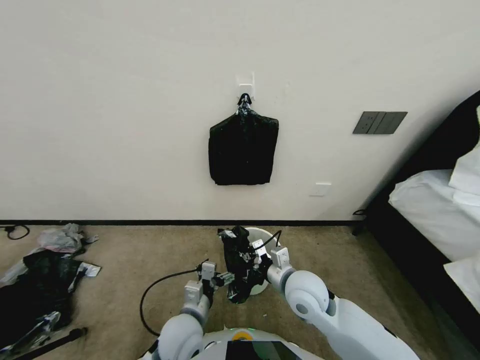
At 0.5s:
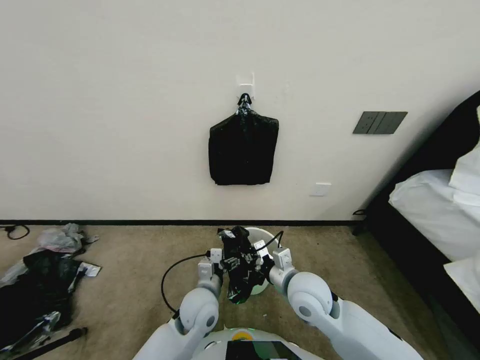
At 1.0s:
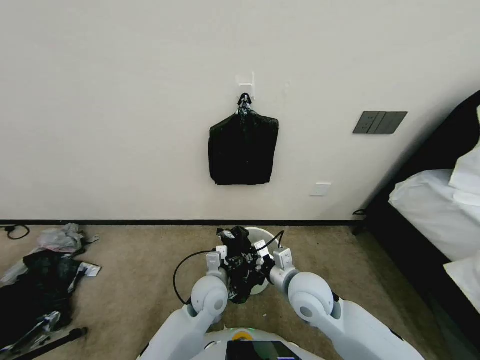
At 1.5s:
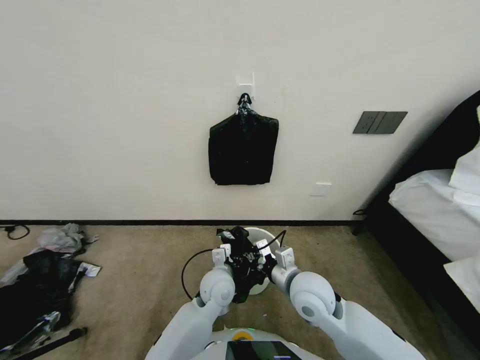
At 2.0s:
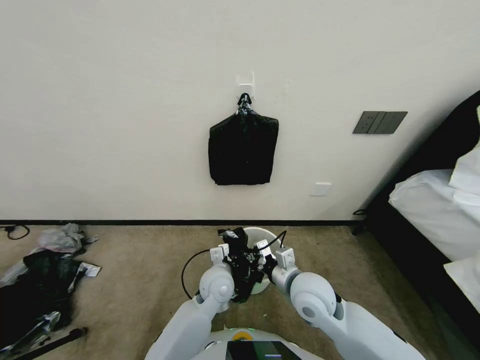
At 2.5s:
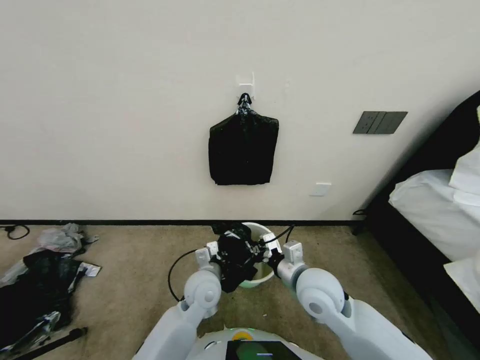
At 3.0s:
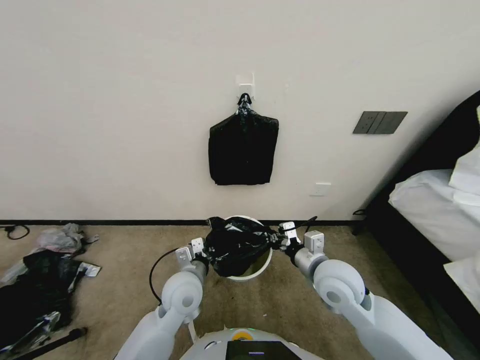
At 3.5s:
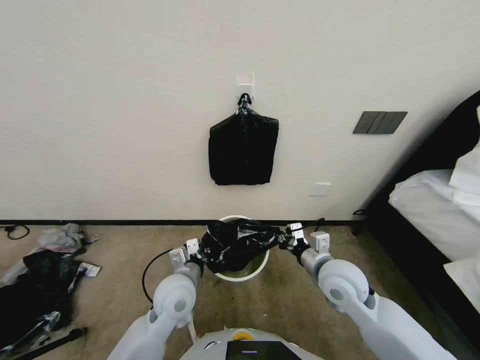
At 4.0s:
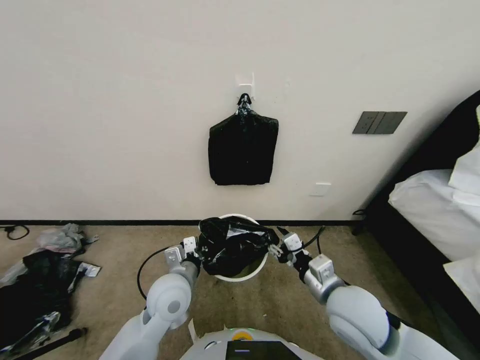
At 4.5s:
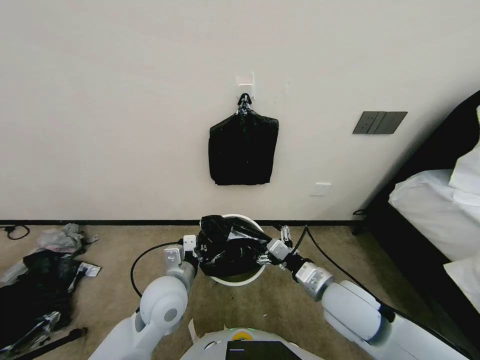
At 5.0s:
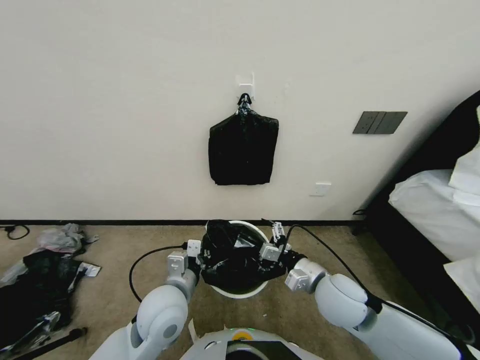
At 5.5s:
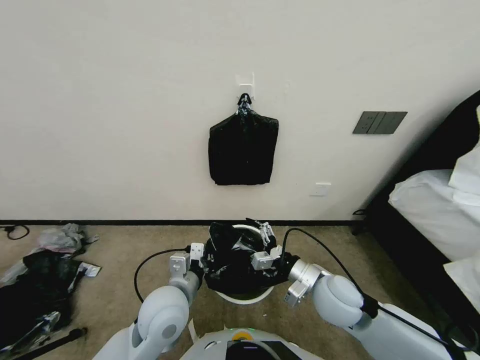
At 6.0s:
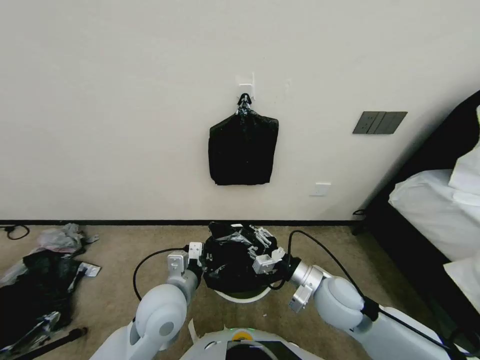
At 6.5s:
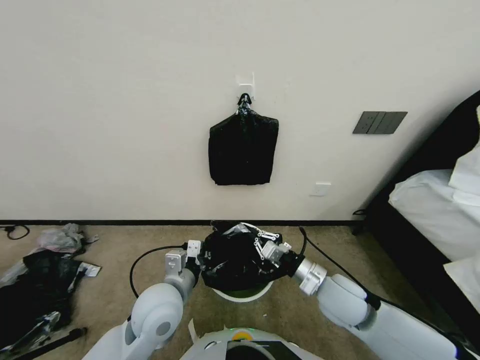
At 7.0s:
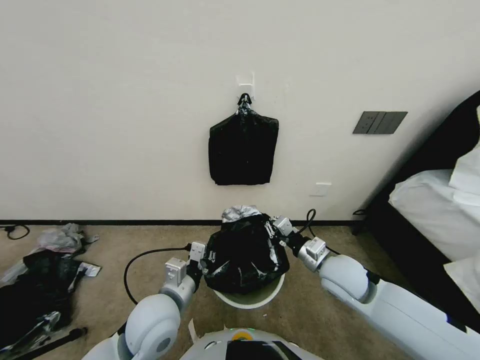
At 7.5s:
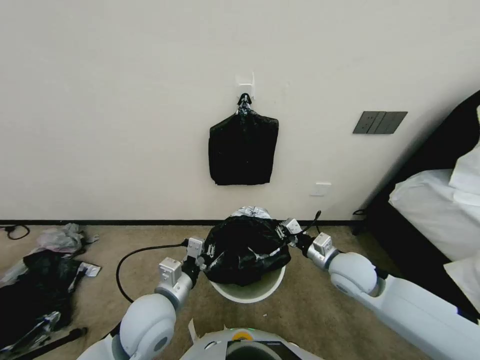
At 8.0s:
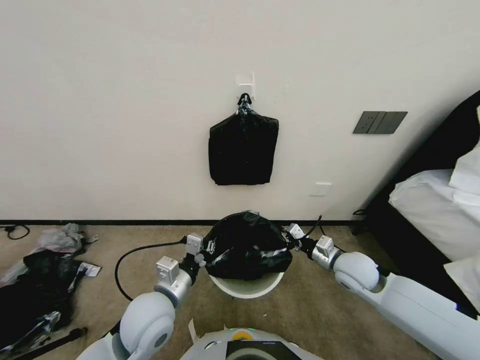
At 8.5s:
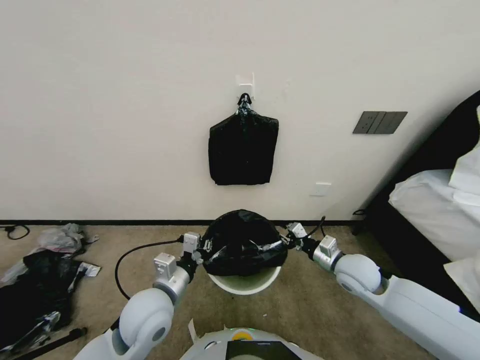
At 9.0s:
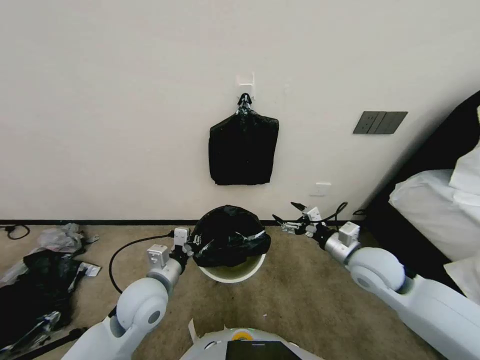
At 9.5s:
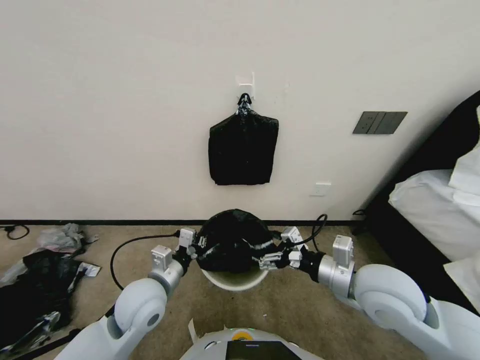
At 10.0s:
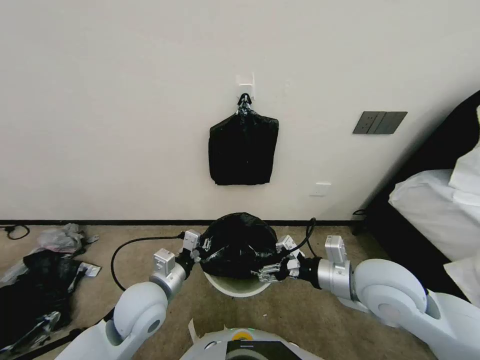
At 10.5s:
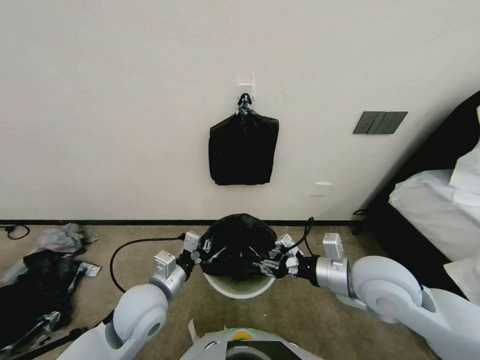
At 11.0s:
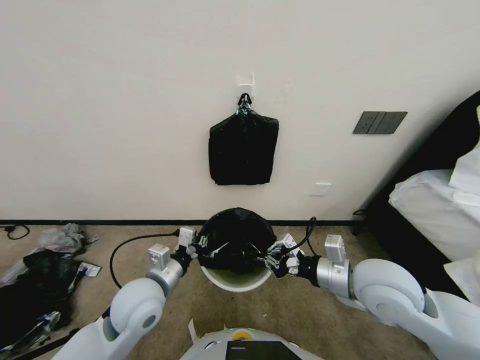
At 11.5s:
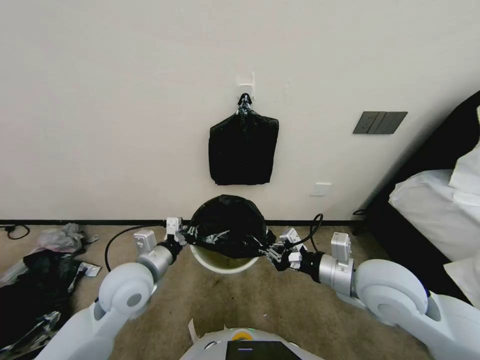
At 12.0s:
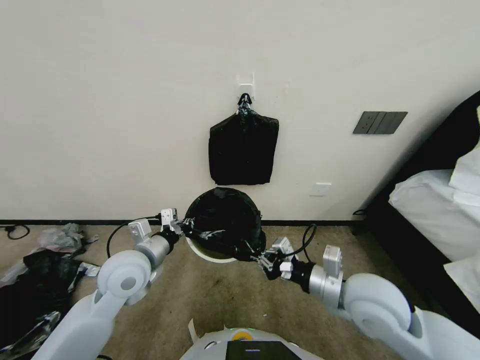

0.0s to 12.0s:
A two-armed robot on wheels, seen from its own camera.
Task of the whole recording: Place a trash bag onto the trash bin.
0.0s to 2.0s: The left gripper moves forward and to the right, roughly 15 cm, and closes its fingers.
2.0s to 4.0s: The left gripper travels to the left and upward by approximately 10 cm. Meanwhile the right gripper heads to the right, covering roughly 5 cm, and opens.
4.0s to 6.0s: The right gripper opens, then closes once more.
6.0s to 8.0s: The right gripper moves to the right and forward, about 10 cm, and closes its fingers.
8.0s to 10.0s: The right gripper shifts roughly 15 cm upward and backward, and opens up.
10.0s to 12.0s: The left gripper changes place by approximately 10 cm, while the right gripper closes its fingers.

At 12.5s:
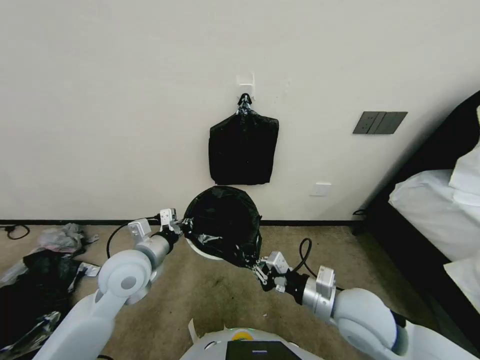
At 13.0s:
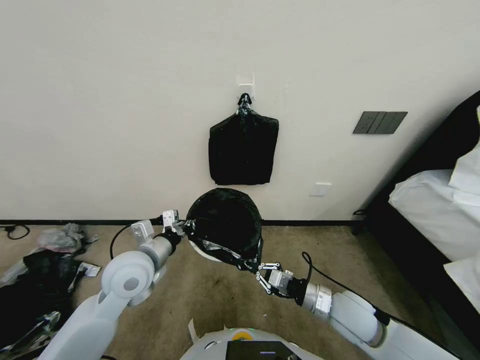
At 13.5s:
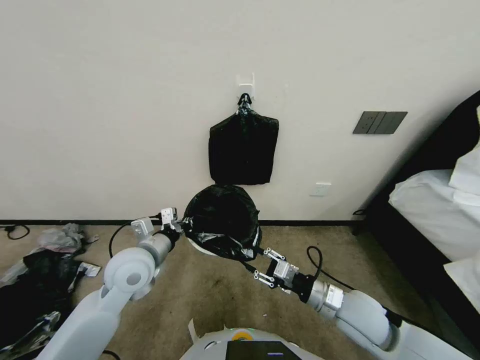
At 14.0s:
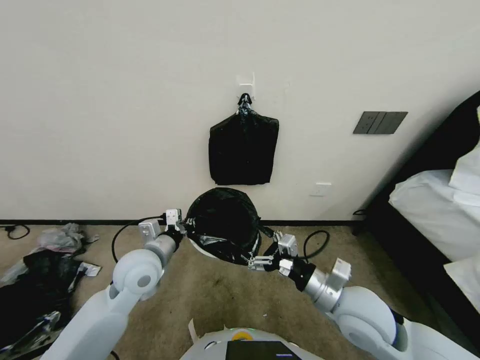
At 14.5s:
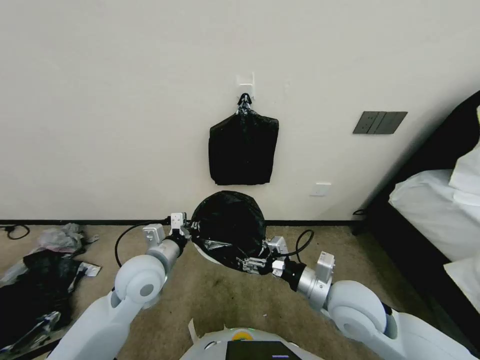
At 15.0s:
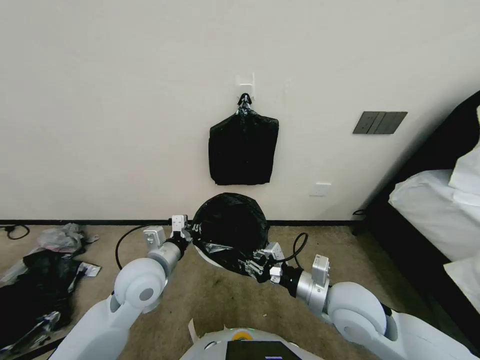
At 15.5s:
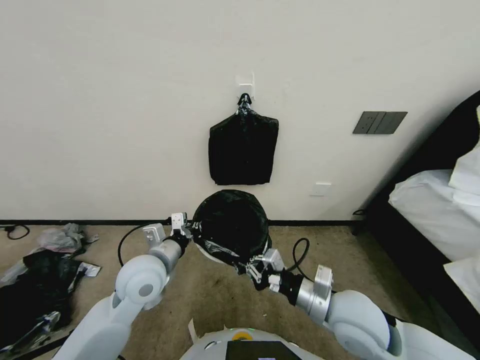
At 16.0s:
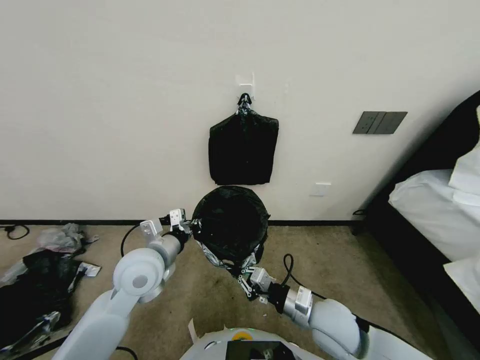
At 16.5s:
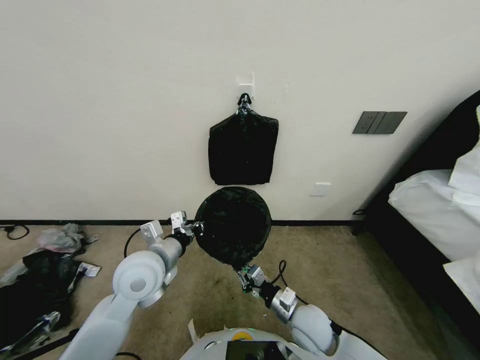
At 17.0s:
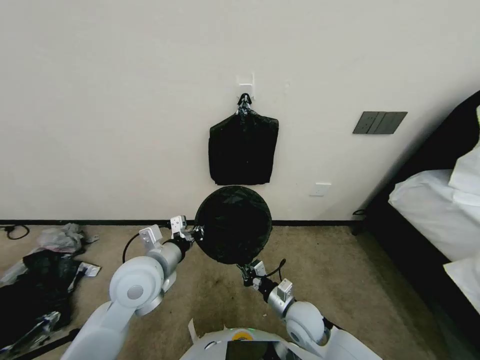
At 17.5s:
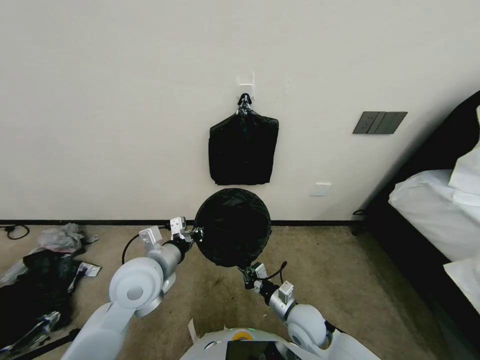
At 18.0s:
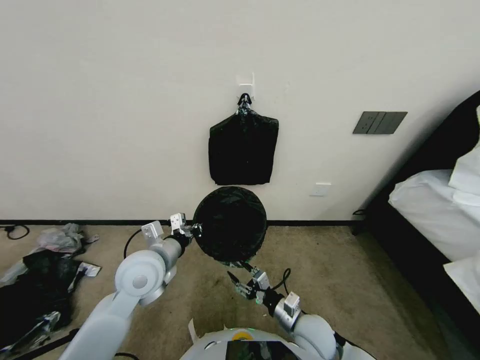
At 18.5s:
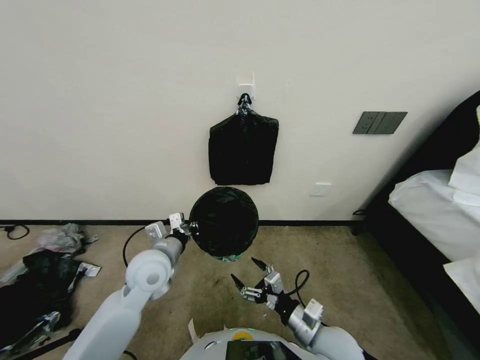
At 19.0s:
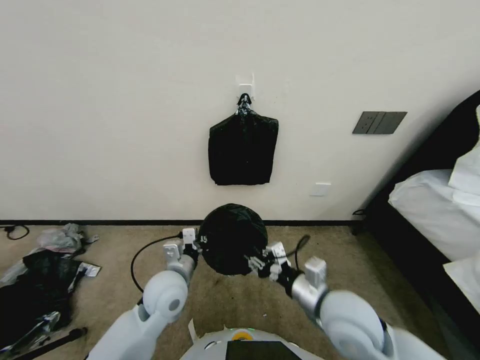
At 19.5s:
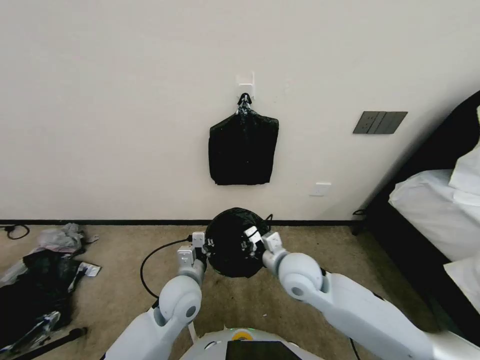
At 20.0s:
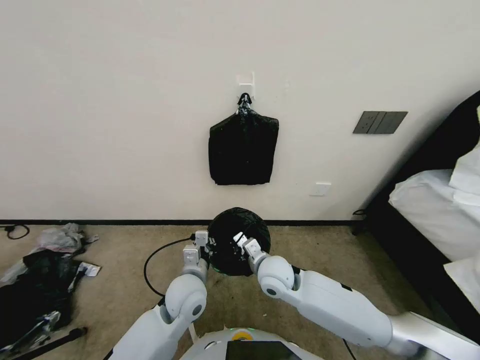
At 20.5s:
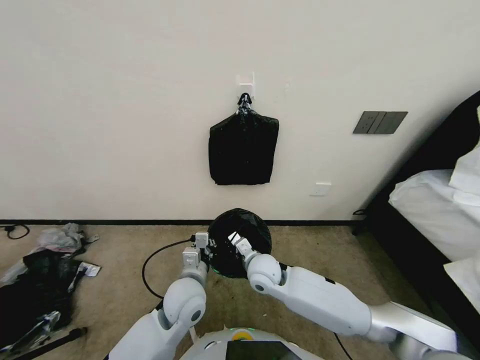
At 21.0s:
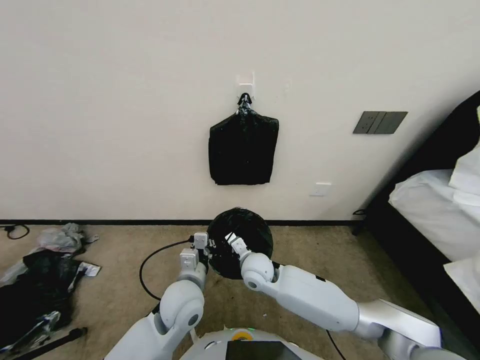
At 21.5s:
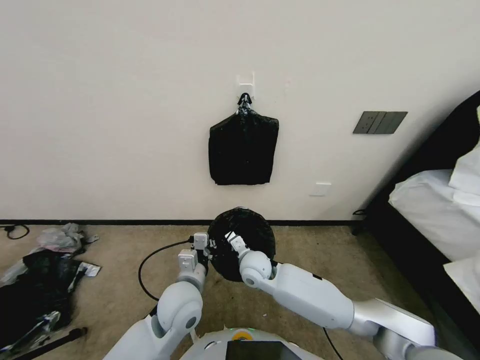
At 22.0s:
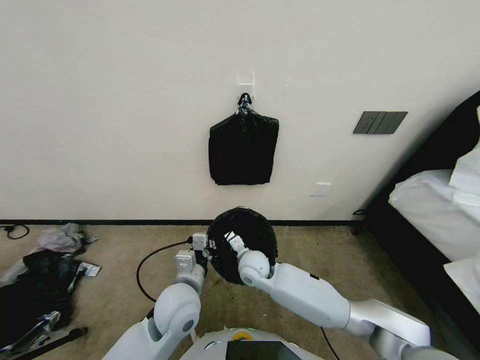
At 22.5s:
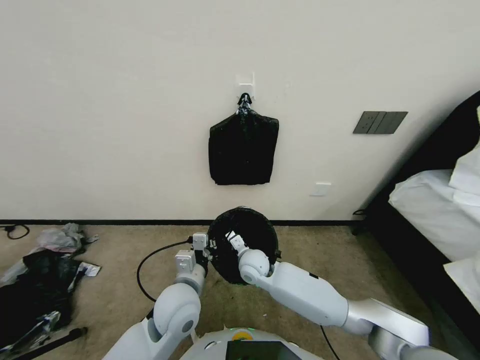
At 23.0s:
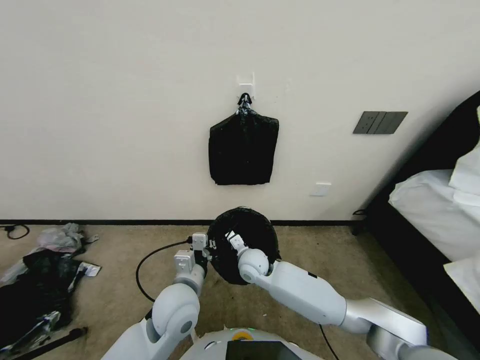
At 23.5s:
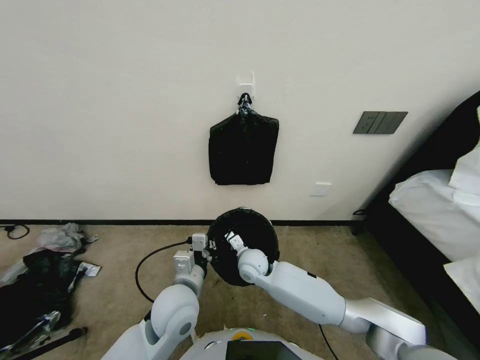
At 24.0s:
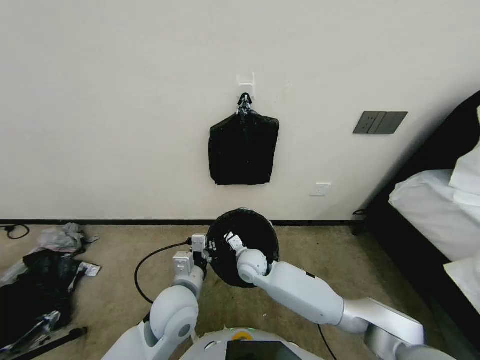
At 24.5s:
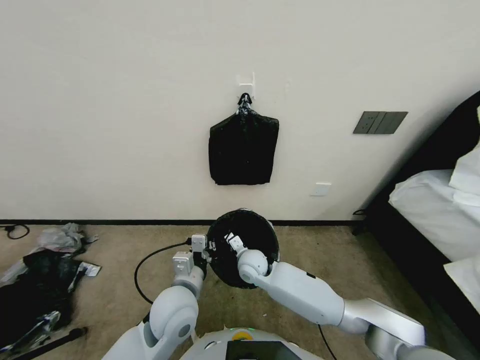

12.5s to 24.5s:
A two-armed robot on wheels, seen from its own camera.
Task of the whole recording: Place a trash bag onto the trash bin.
12.5s to 14.5s: The right gripper travels downward and back again, roughly 10 cm each way, and opens up.
14.5s to 16.5s: The right gripper is displaced downward by some 15 cm, and closes.
16.5s to 18.5s: The right gripper opens its fingers.
18.5s to 20.5s: The right gripper travels forward and to the left by about 20 cm, and closes up; the left gripper moves to the right and downward, some 10 cm.
20.5s to 22.5s: The right gripper moves about 5 cm.
22.5s to 24.5s: The grippers make only small movements.

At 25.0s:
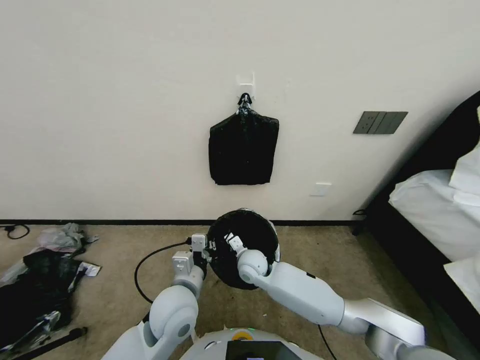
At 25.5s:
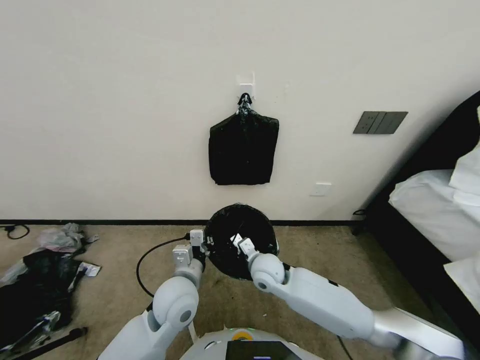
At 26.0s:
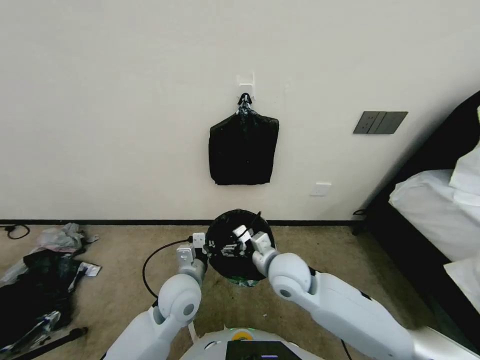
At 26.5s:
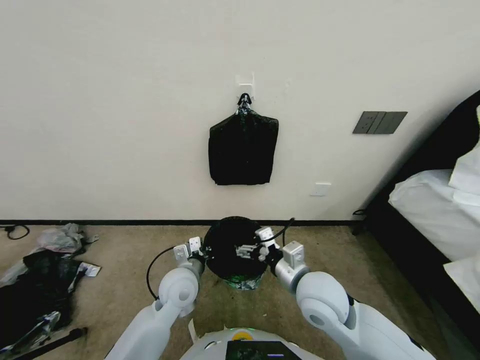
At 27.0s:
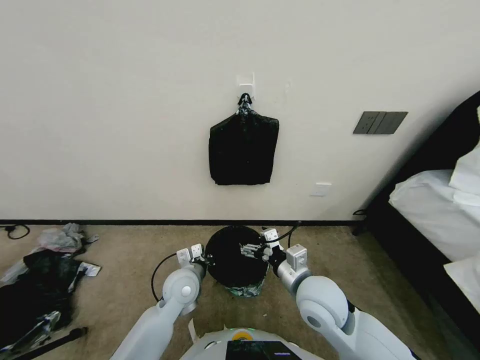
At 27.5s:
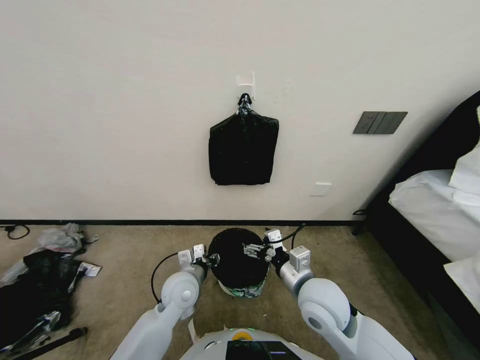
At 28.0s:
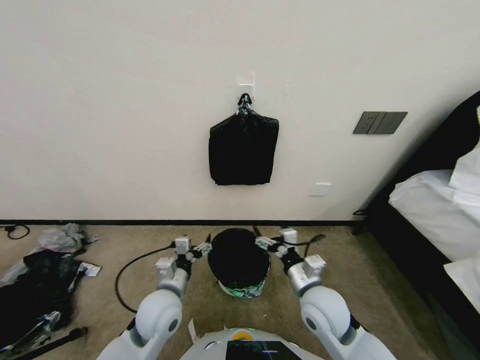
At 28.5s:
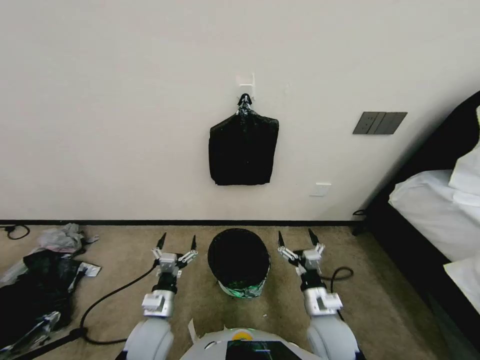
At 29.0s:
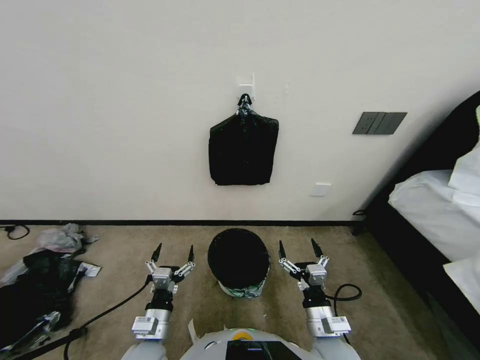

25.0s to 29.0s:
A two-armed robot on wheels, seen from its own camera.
Task of the whole recording: Place a trash bag onto the trash bin.
25.0s to 27.0s: The right gripper moves backward, upward and to the right, some 20 cm, and opens up. The left gripper goes roughly 10 cm downward and forward.
27.0s to 29.0s: The right gripper heads downward and backward, covering about 15 cm, while the left gripper shifts roughly 15 cm backward, and opens.
